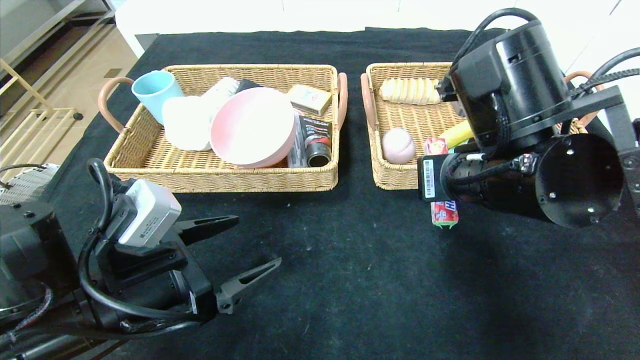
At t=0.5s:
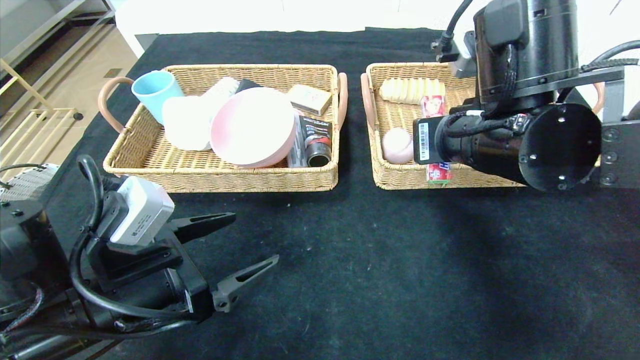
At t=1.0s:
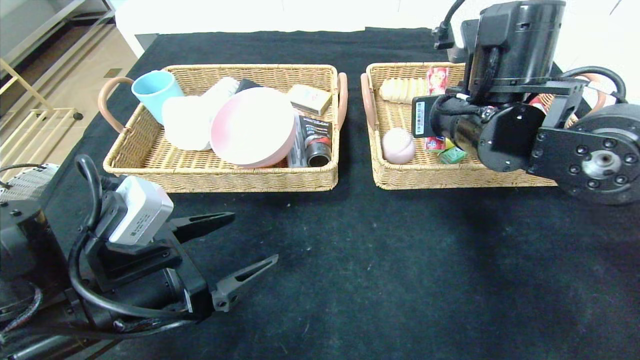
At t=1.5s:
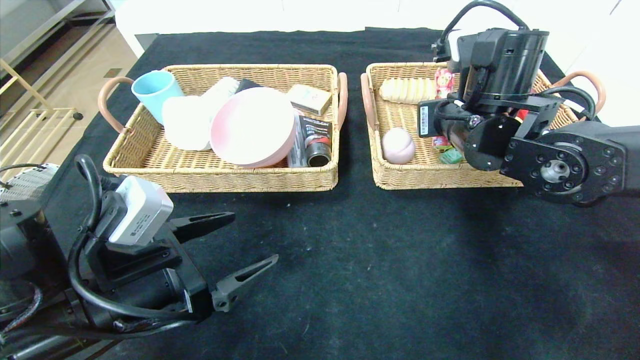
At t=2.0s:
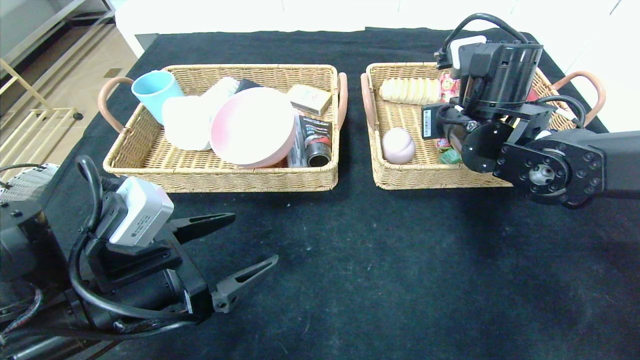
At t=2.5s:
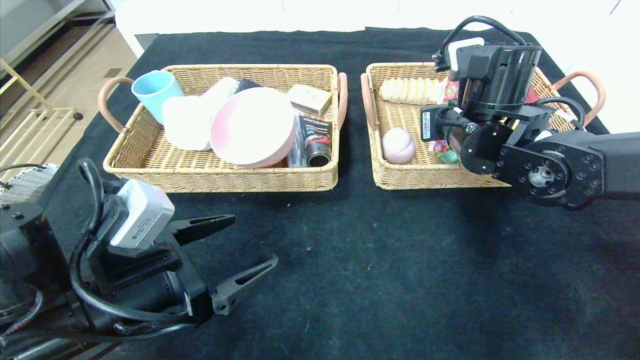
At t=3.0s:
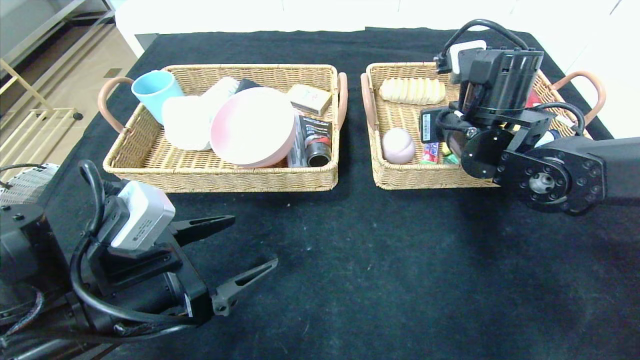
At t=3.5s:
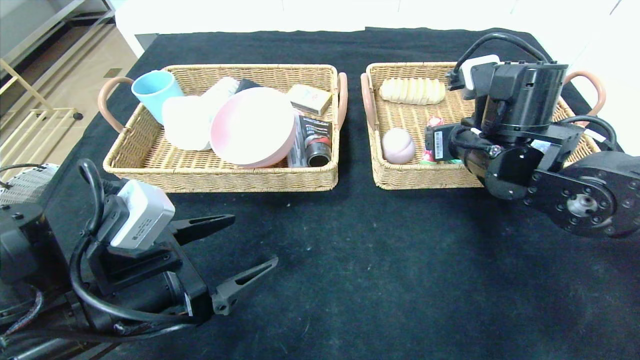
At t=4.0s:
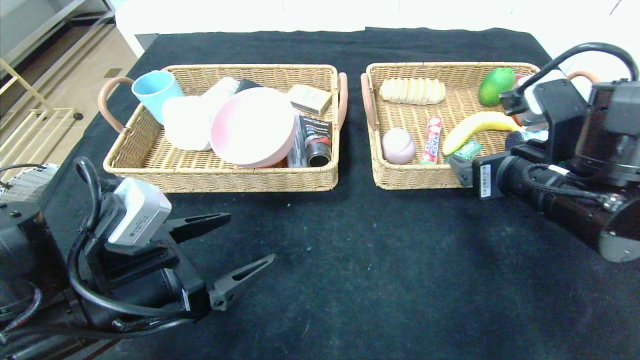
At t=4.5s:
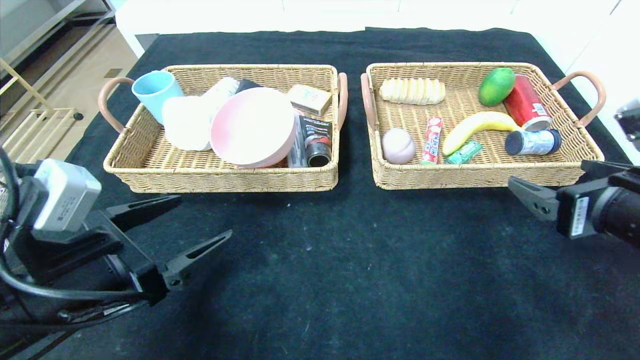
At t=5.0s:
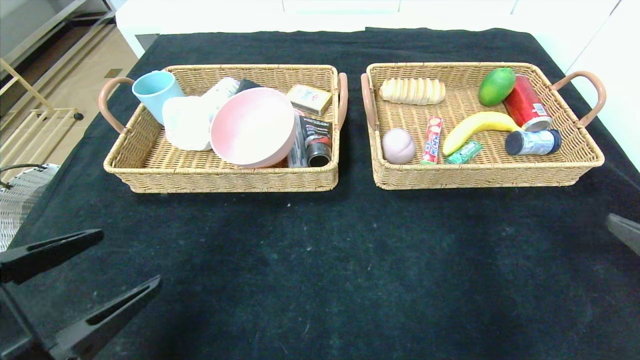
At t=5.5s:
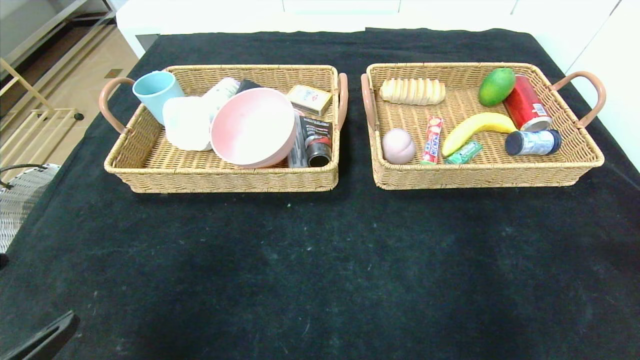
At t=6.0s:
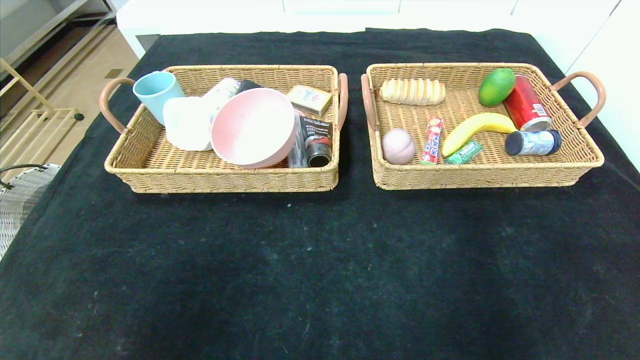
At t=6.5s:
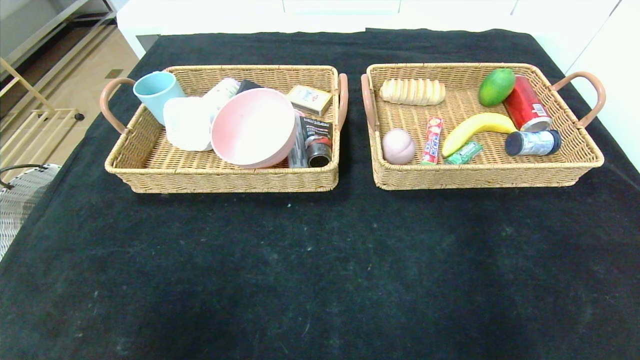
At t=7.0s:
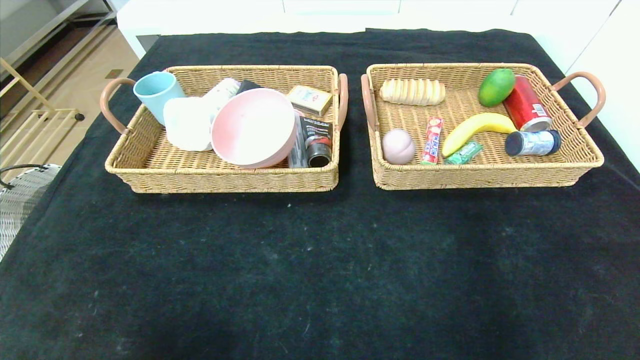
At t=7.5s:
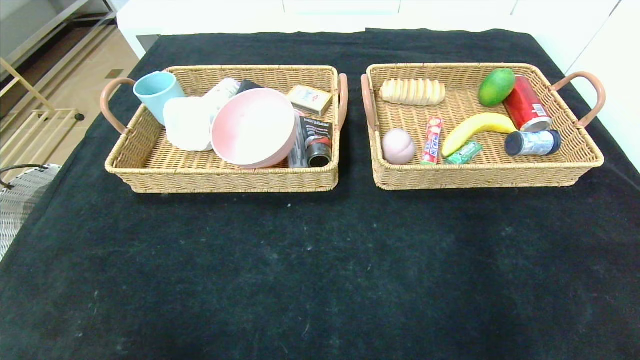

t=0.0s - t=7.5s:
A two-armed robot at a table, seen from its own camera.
Step, t=0.0s - t=3.0s: Grasp the fruit fudge and put it in the right basket.
t=0.0s - t=2.0s: The right gripper travels forward by some 10 cm.
t=2.0s - t=4.0s: The right gripper is displaced backward by about 10 cm, and opens.
t=4.0s - t=5.5s: The left gripper heads backward and to the left, covering some 15 cm, while the right gripper moves backward and to the right, about 25 cm.
t=5.5s - t=7.5s: The left gripper moves downward and backward, some 15 cm.

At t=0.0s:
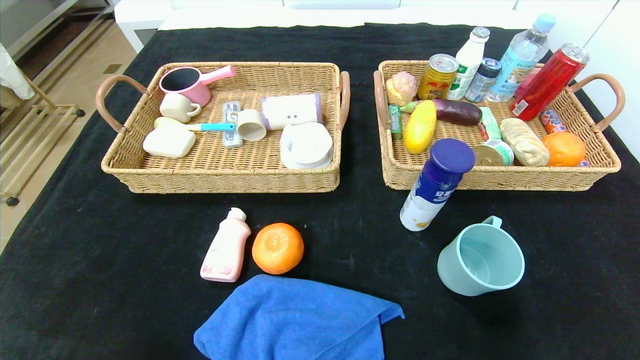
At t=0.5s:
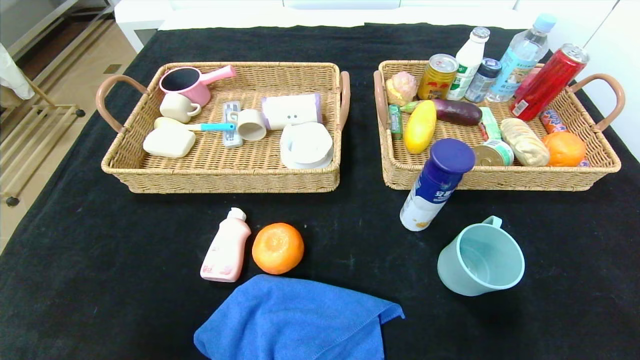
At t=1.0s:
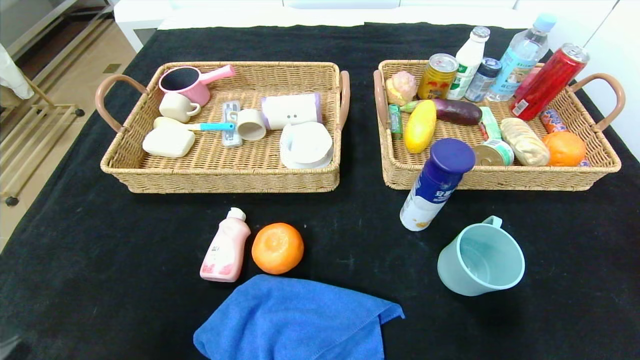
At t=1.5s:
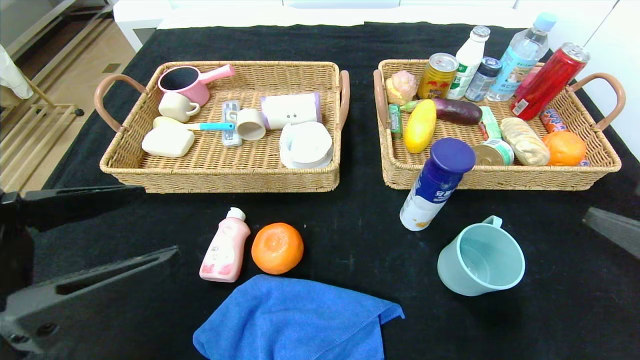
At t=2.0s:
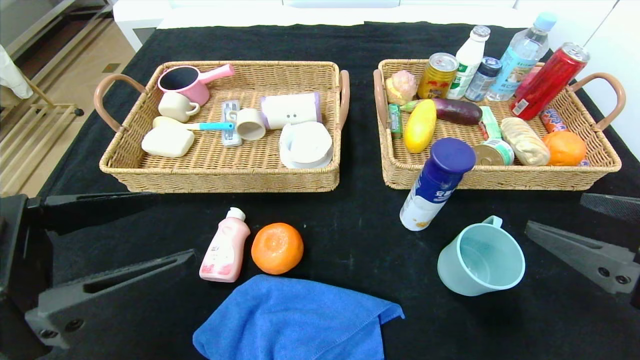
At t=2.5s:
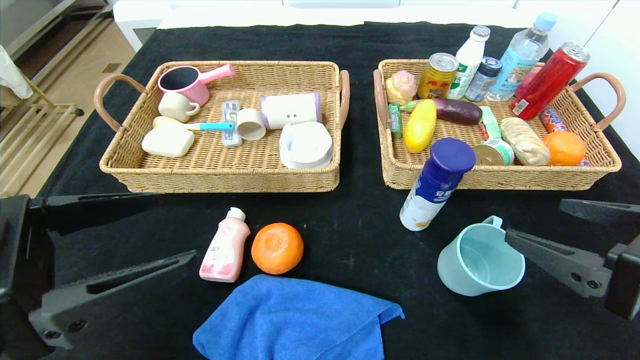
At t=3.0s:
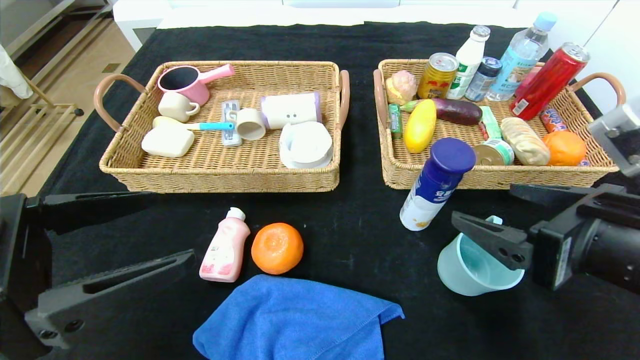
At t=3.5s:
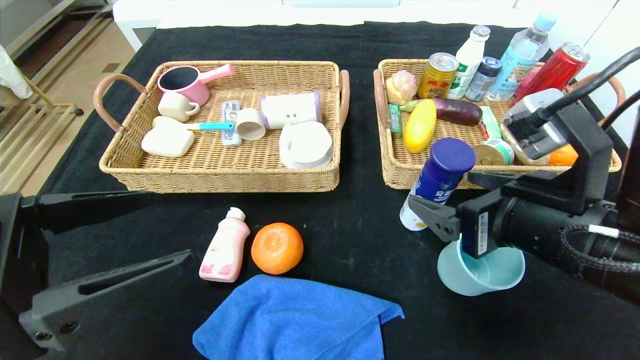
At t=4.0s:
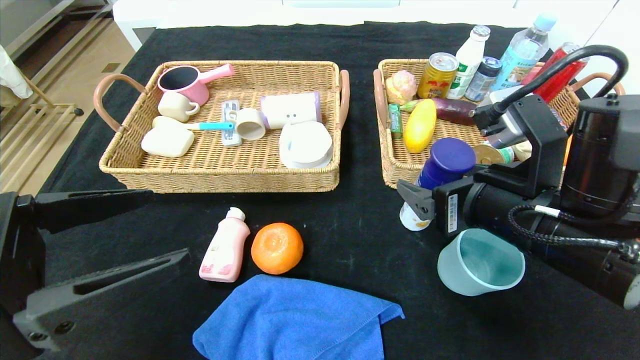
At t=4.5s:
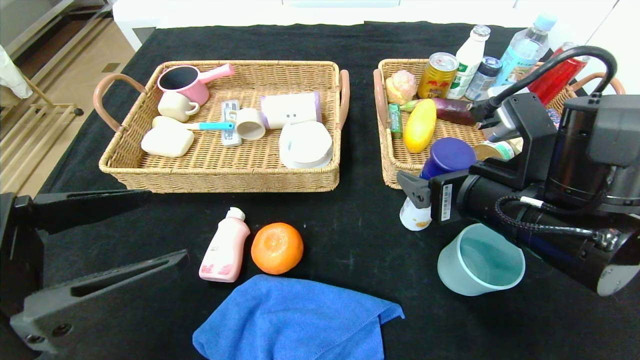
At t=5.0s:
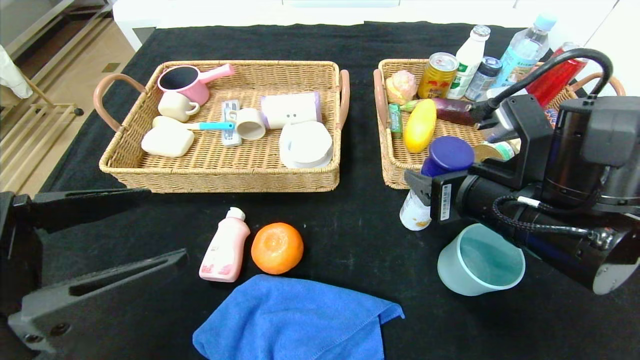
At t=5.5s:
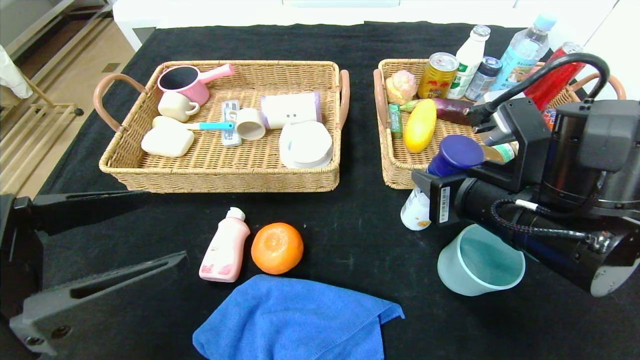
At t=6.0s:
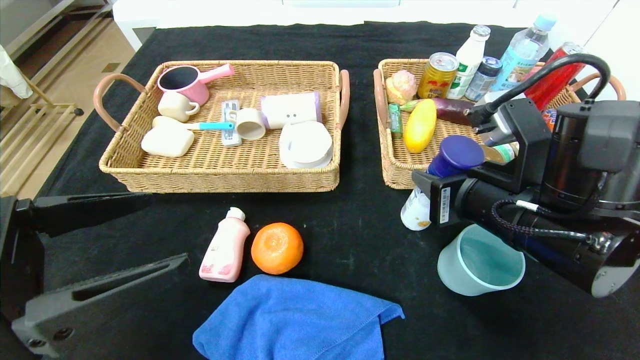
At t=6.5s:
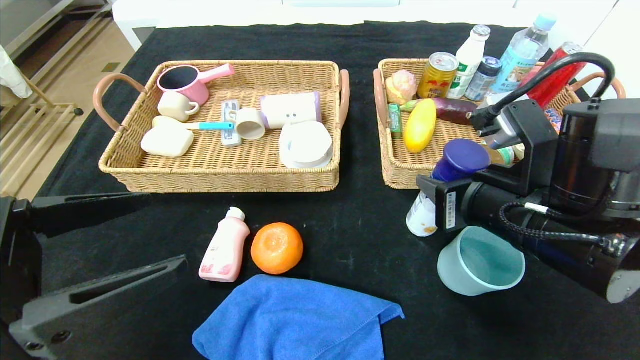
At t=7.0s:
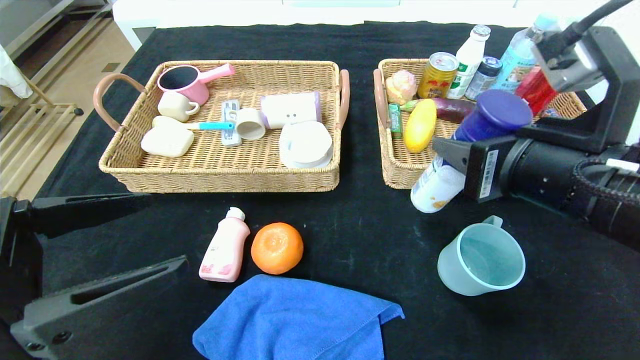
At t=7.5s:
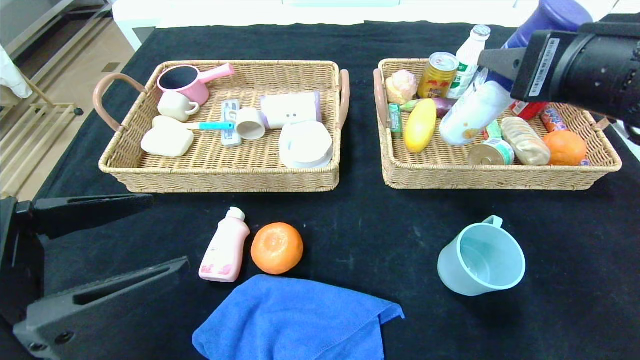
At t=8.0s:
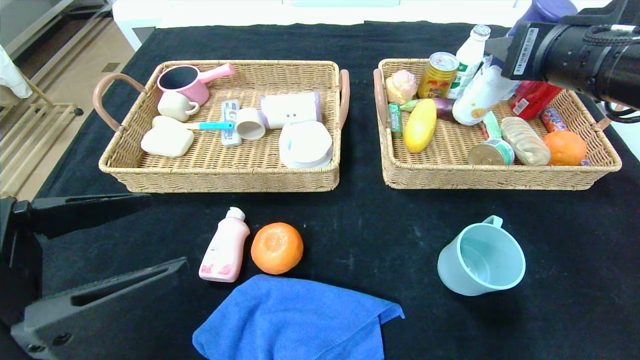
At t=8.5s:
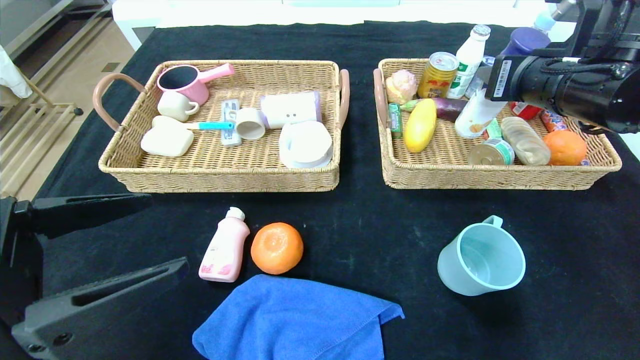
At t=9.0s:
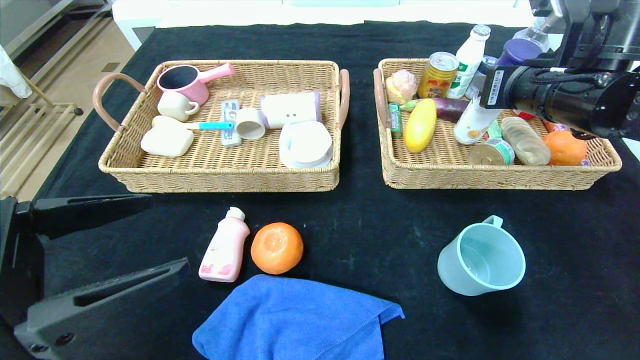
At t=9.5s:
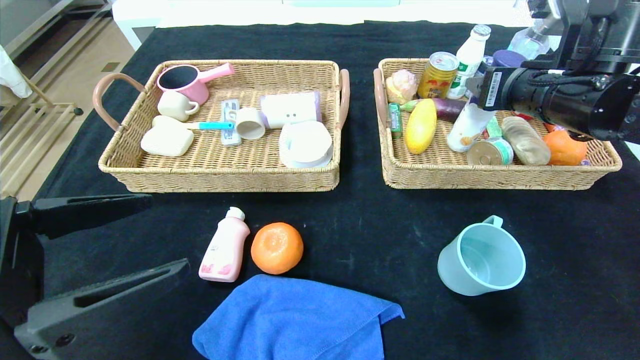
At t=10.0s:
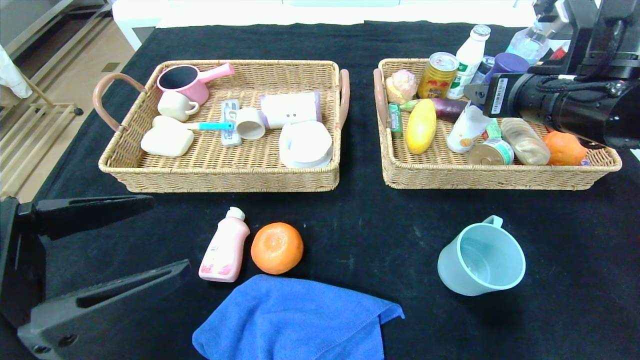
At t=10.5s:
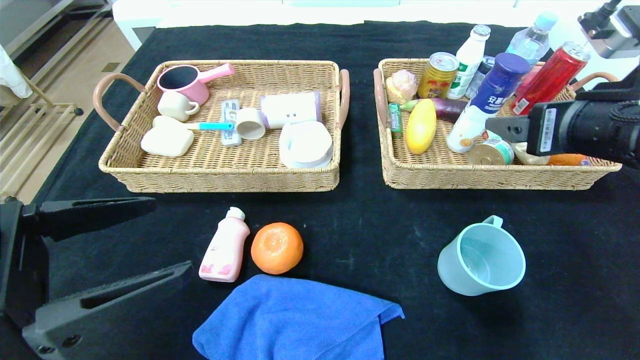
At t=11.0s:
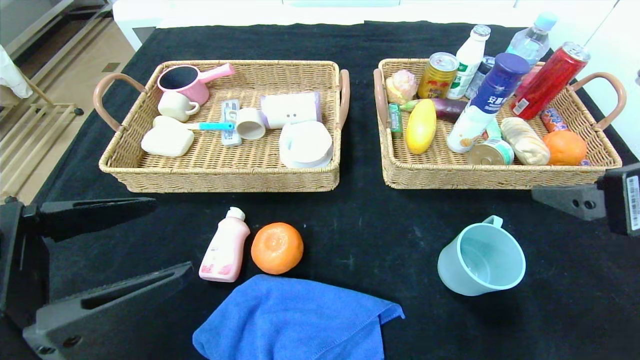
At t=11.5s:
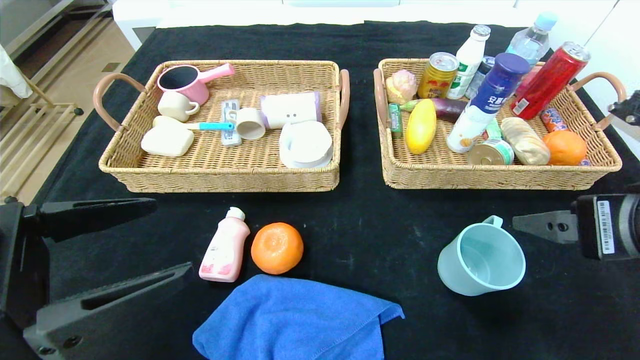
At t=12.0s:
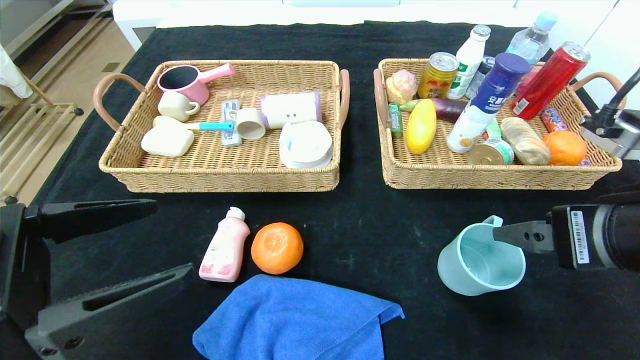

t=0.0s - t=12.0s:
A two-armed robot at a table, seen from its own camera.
Step, t=0.0s - t=11.0s: Pick up the yogurt and put it in the right basket.
t=0.0s - t=2.0s: The left gripper heads upward and forward, covering approximately 25 cm. The right gripper travels upward, forward and to the left by roughly 25 cm.
t=2.0s - t=4.0s: The right gripper travels to the left and forward by about 15 cm.
t=4.0s - t=6.0s: The right gripper closes its fingers.
t=6.0s - t=8.0s: The right gripper moves upward and to the right, some 15 cm.
t=8.0s - t=10.0s: The right gripper opens its fingers.
t=10.0s - t=12.0s: The right gripper is displaced backward by about 15 cm.
